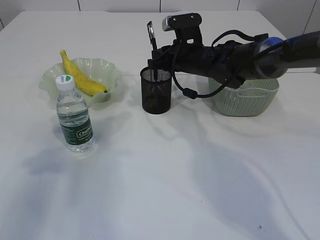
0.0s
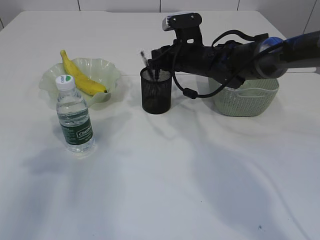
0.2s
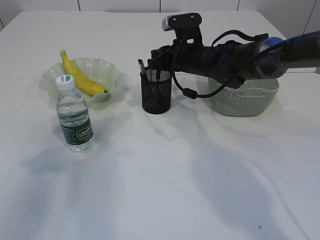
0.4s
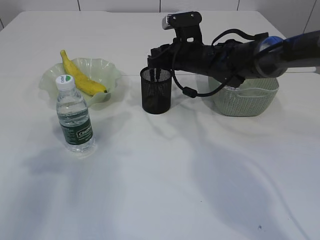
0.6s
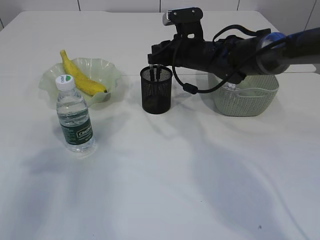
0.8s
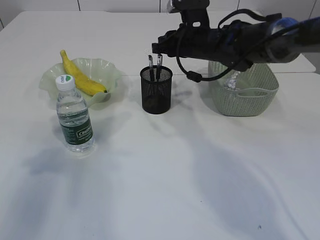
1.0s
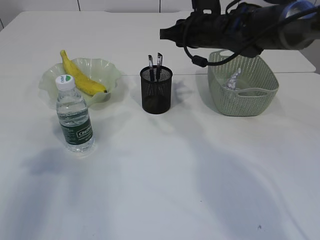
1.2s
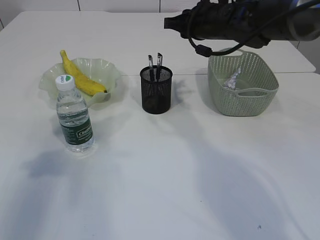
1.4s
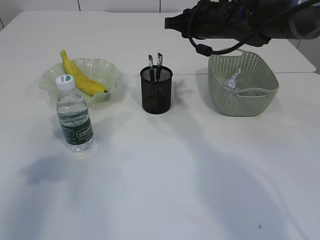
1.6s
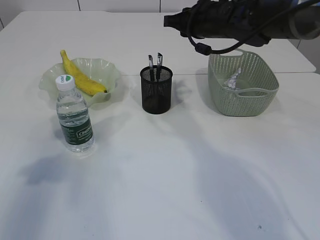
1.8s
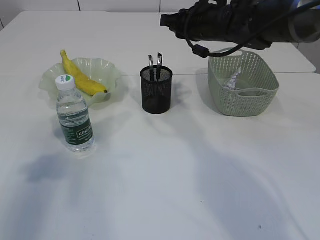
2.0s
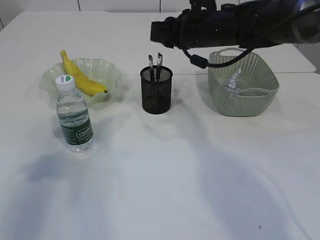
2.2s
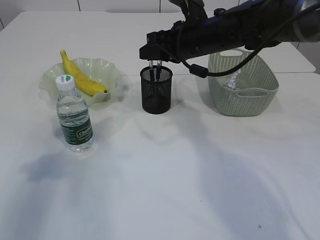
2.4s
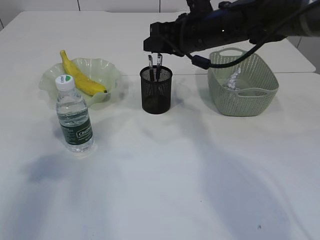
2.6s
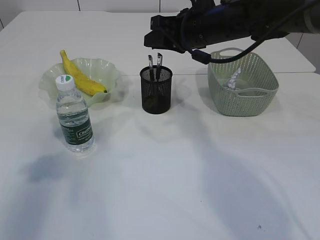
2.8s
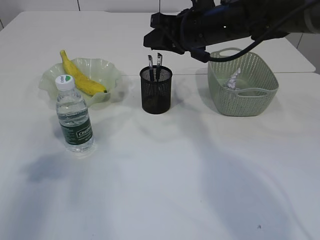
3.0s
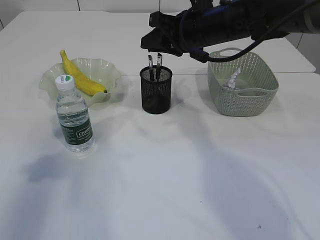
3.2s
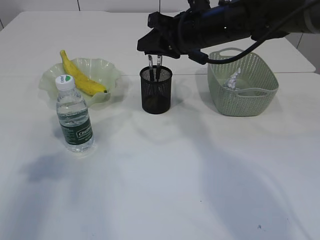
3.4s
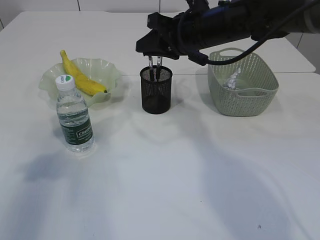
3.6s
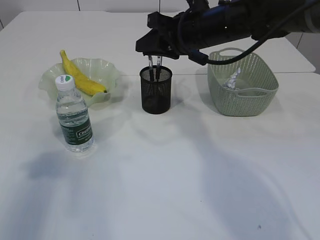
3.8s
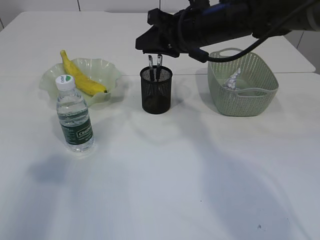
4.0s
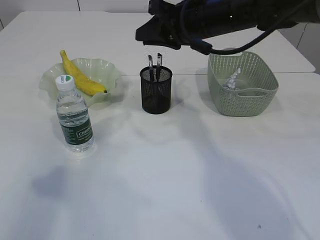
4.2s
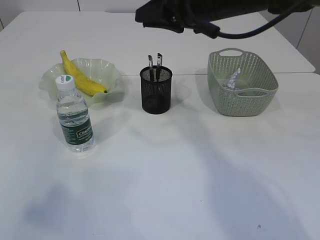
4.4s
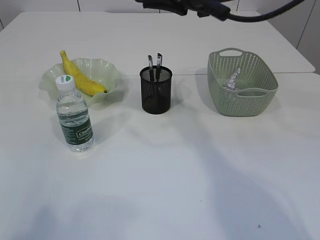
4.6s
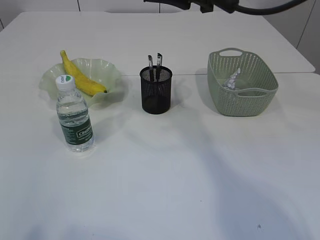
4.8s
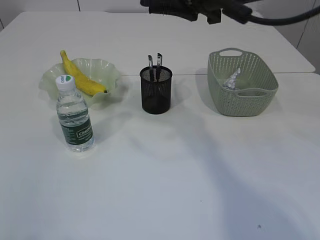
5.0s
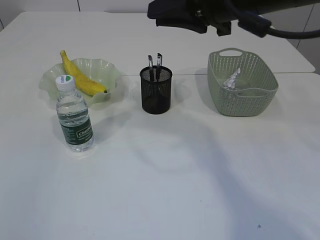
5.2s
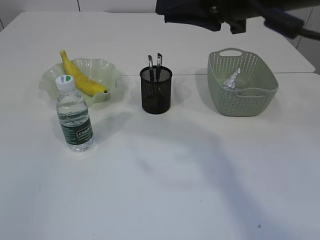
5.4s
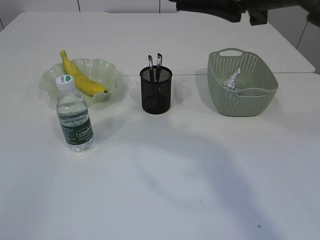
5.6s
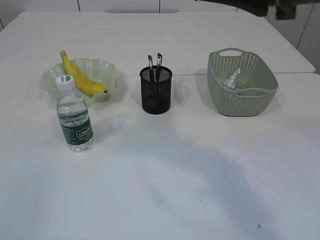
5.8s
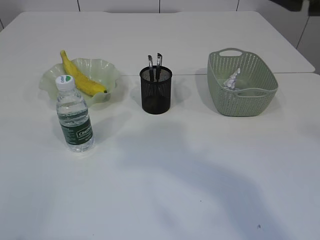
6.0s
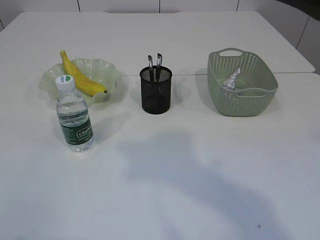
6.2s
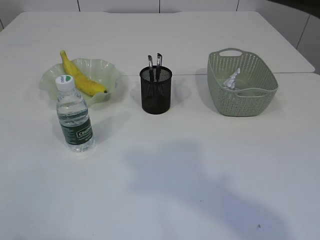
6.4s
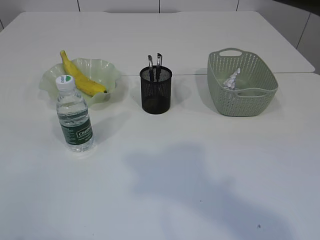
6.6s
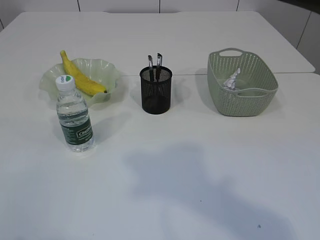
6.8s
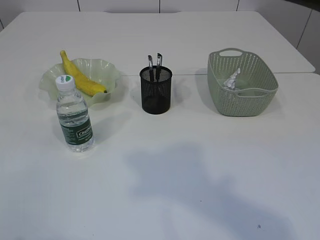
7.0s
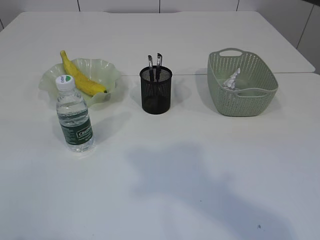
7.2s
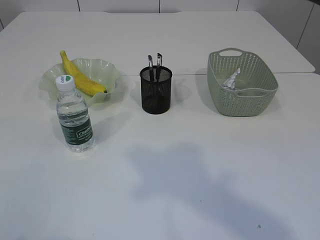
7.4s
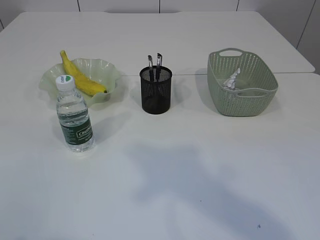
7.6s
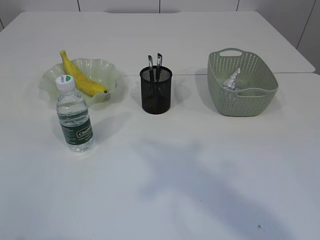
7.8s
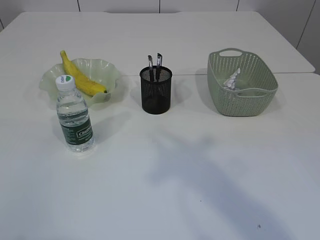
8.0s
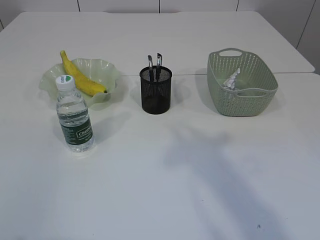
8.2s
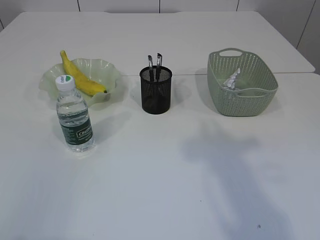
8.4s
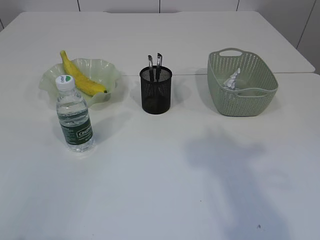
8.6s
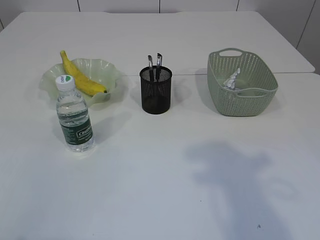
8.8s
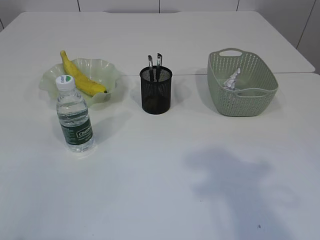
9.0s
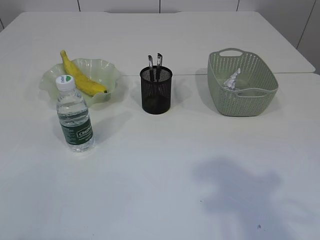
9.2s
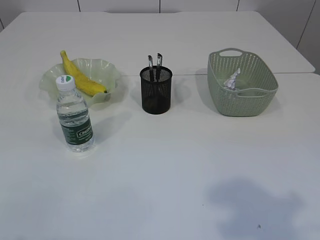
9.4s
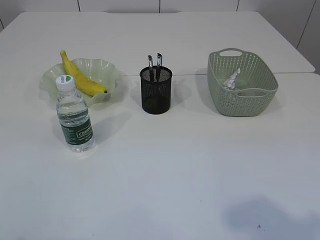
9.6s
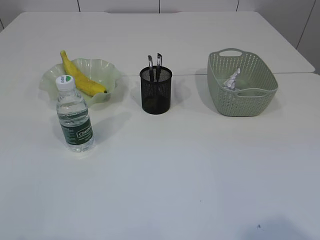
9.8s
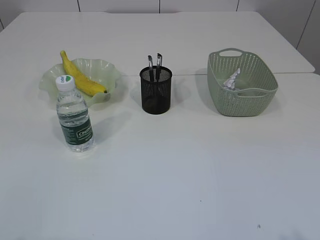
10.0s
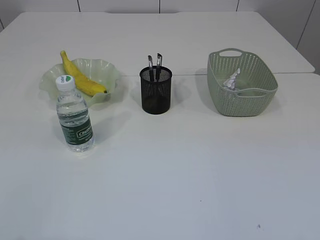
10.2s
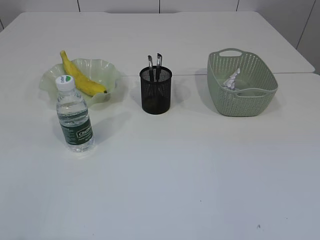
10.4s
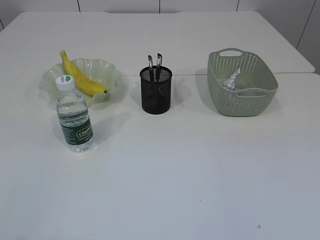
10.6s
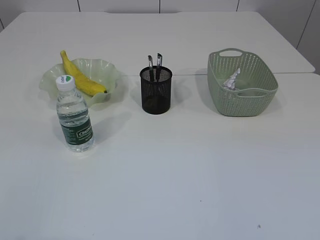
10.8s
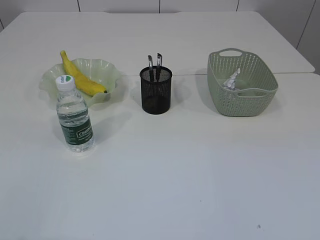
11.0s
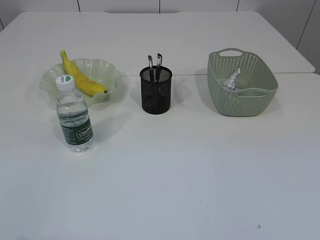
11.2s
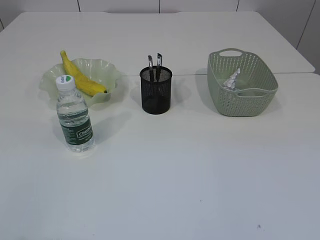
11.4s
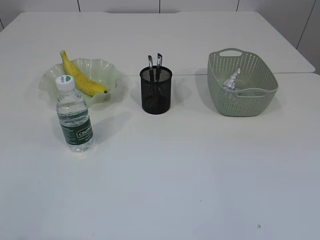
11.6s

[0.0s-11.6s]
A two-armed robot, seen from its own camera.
0.0s to 1.4s: The right gripper travels upward by approximately 10 cm.
2.8s to 4.4s: The left gripper shifts roughly 20 cm backward and upward. The right gripper shifts by roughly 5 cm.
4.4s to 5.8s: The right gripper travels backward and upward by roughly 20 cm. Meanwhile the left gripper travels downward and backward by approximately 15 cm.
5.8s to 7.2s: The right gripper travels backward by about 10 cm.
8.8s to 10.2s: The right gripper shifts approximately 20 cm backward.

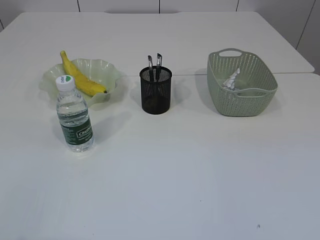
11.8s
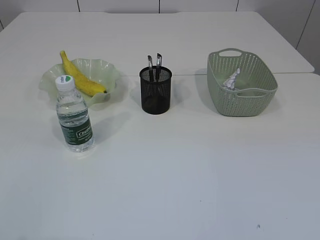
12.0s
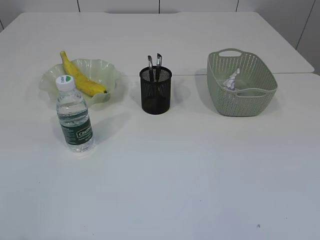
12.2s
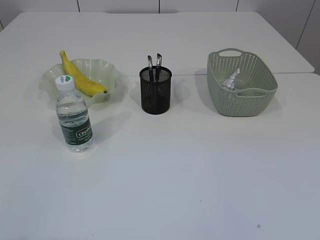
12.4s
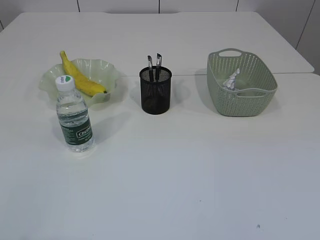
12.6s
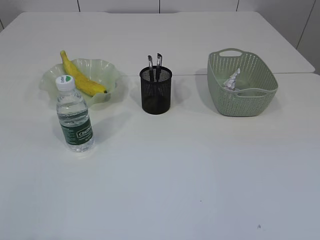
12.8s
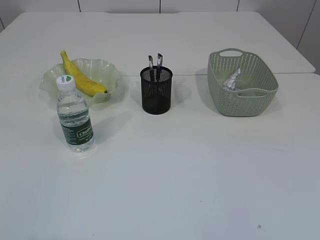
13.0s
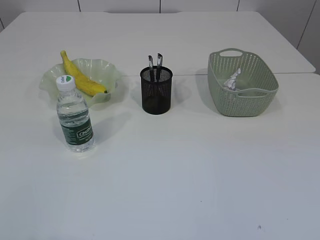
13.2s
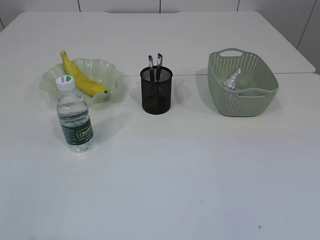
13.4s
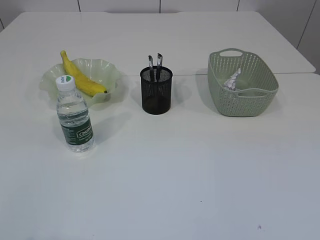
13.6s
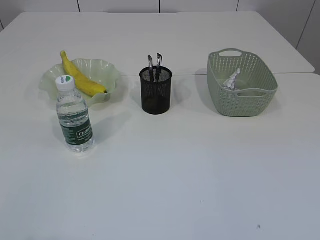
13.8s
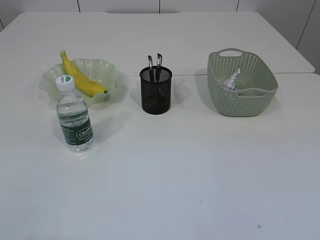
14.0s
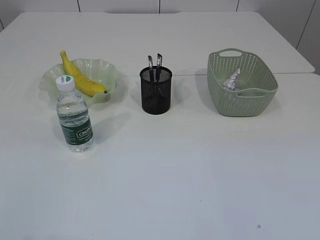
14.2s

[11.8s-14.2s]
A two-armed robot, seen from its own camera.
13.0s to 14.2s: The two grippers keep their place.

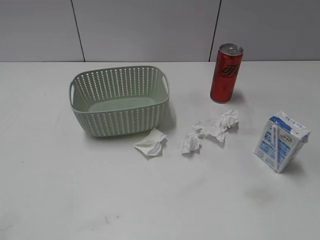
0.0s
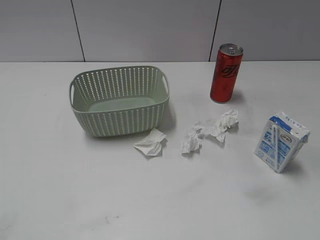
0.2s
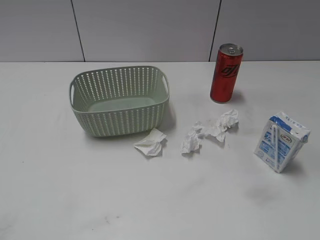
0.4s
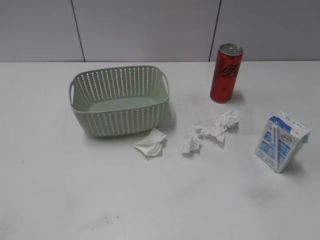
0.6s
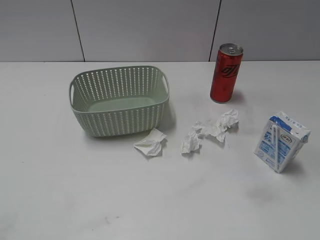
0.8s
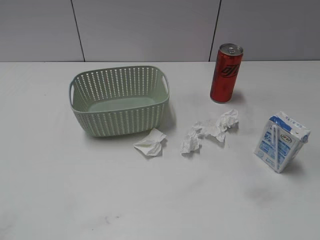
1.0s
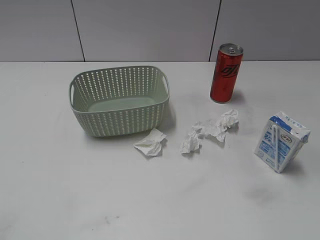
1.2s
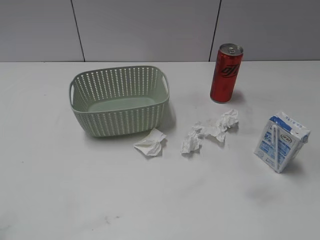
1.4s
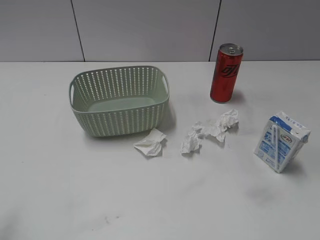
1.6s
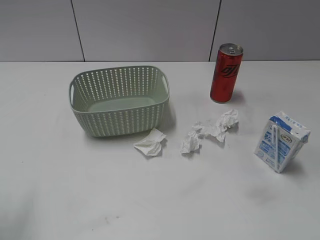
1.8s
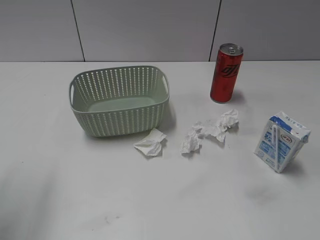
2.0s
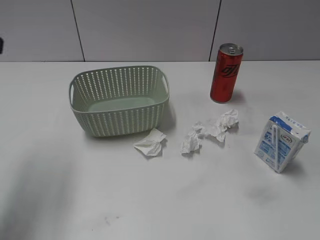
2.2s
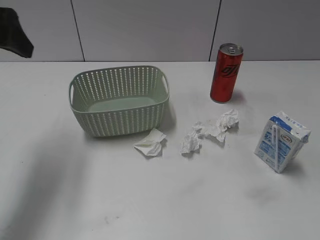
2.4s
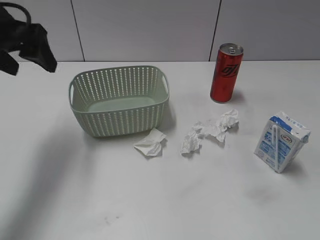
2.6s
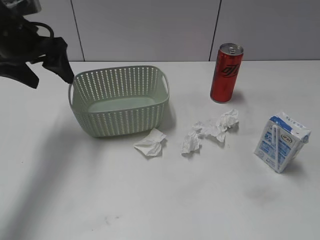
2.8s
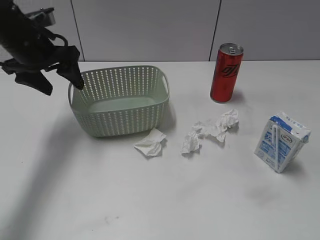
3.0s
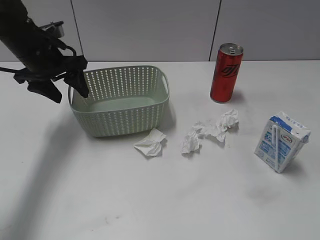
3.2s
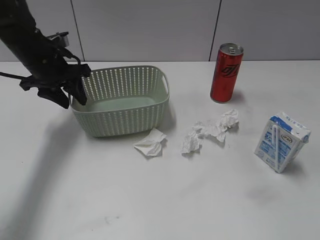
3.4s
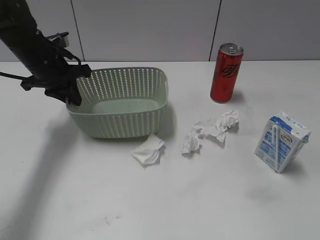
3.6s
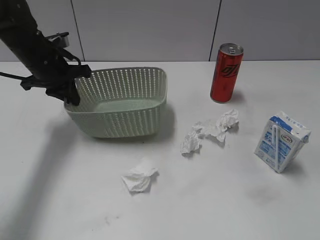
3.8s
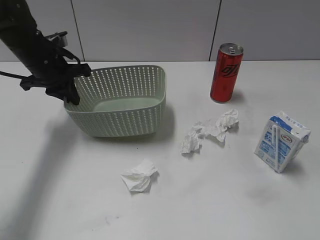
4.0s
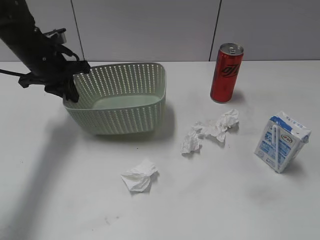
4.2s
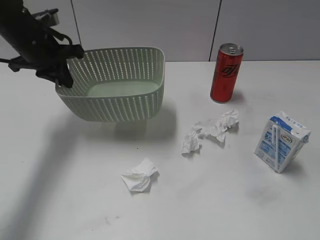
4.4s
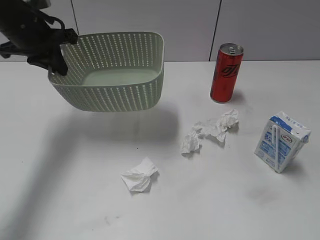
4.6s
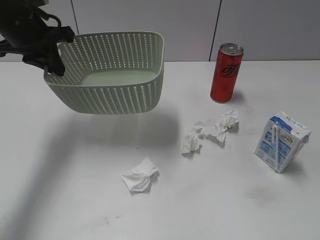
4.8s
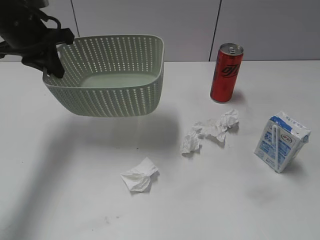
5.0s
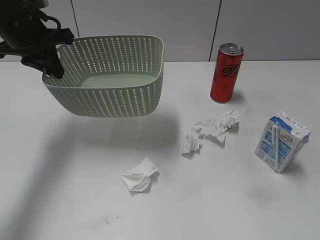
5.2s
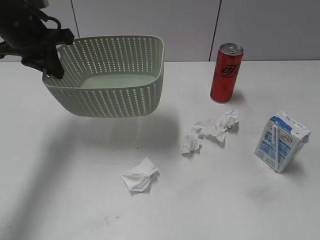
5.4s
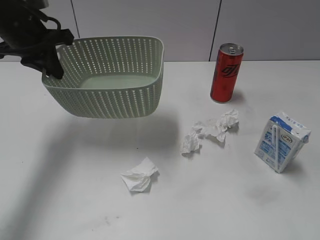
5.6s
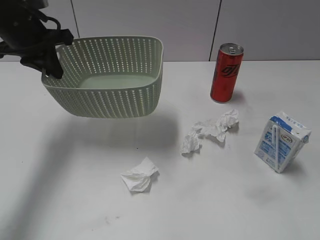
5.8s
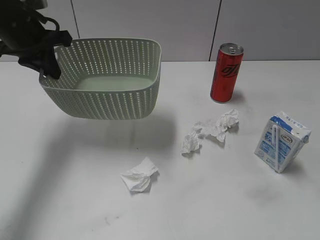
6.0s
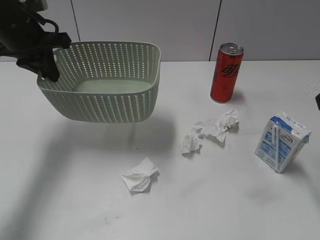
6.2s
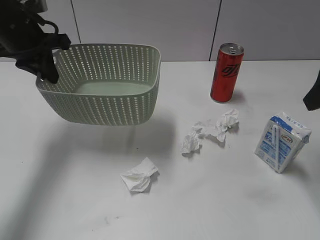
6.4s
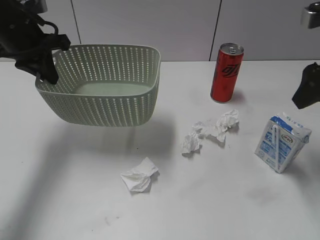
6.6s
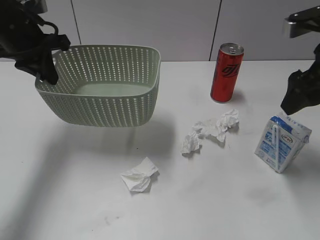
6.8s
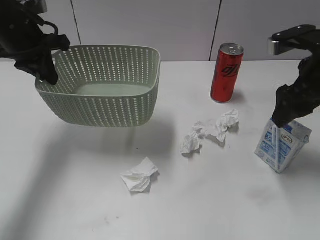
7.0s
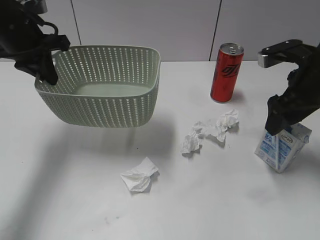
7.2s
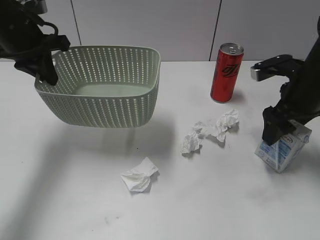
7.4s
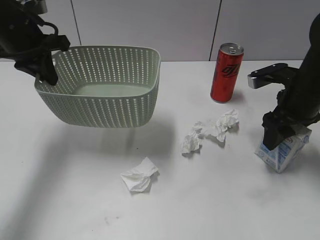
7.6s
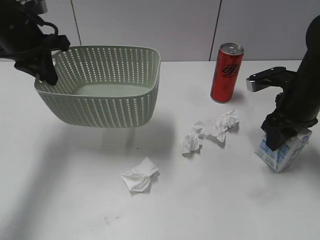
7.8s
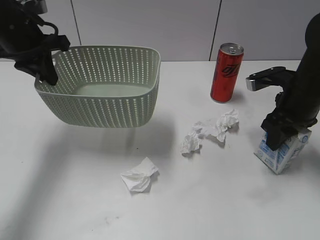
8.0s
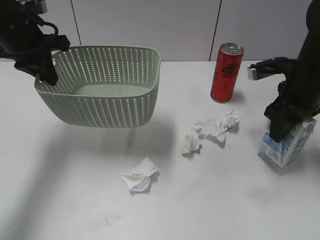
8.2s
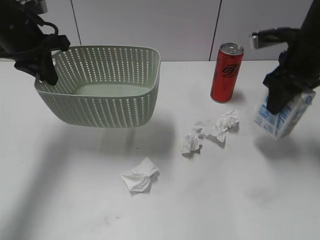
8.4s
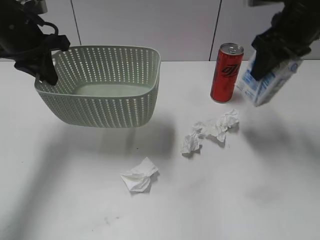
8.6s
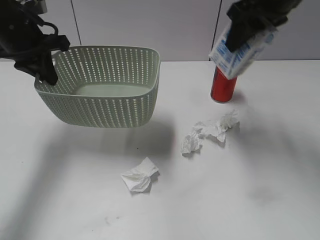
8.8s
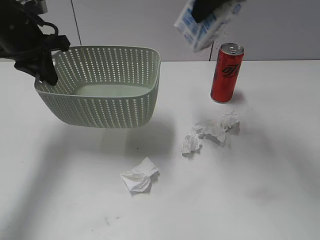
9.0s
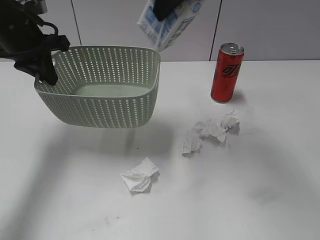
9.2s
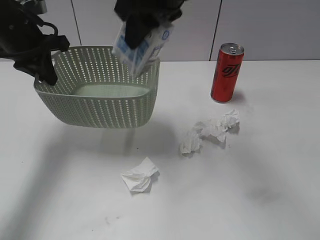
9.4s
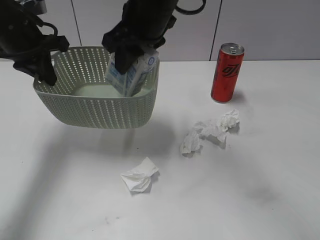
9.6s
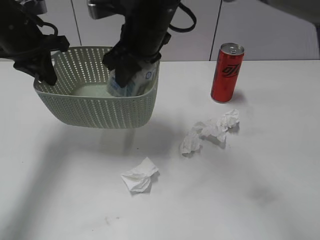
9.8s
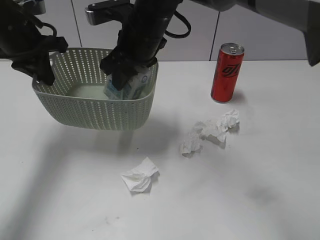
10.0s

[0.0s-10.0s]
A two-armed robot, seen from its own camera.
Step, 2.2s to 3.8s: Grasp the basket with left gripper.
Step, 4.0s to 4.6s: Lift the basket with left gripper.
Step, 4.8s to 8.0s: Grasp the milk with right gripper.
1.4s to 2.8s: The left gripper goes approximately 30 cm forward.
2.8s to 4.2s: The left gripper shifts approximately 10 cm downward and forward, and closes up.
4.2s to 5.8s: The right gripper shifts about 10 cm forward, while the left gripper goes approximately 10 cm upward.
5.8s to 7.2s: The right gripper goes some 25 cm forward.
7.2s to 8.6s: The right gripper goes roughly 5 cm forward and upward, and closes.
8.6s to 10.0s: The right gripper shifts approximately 25 cm to the left.
